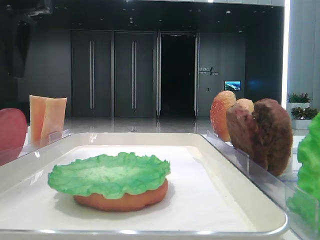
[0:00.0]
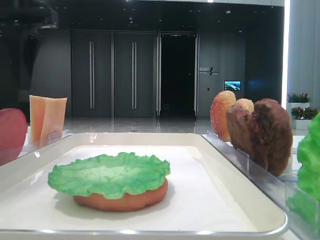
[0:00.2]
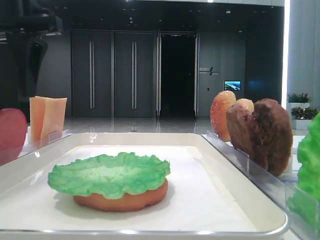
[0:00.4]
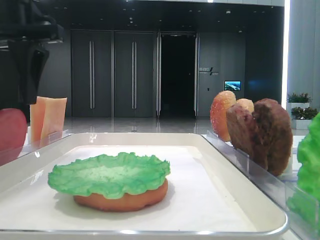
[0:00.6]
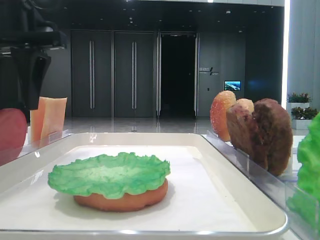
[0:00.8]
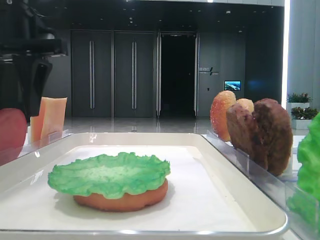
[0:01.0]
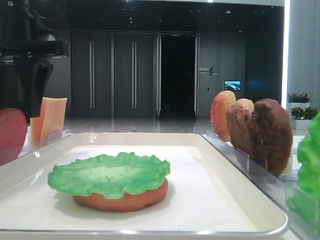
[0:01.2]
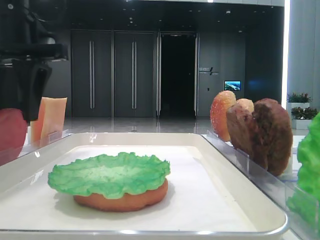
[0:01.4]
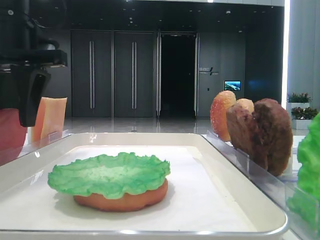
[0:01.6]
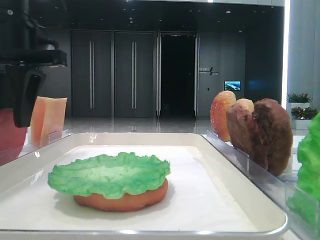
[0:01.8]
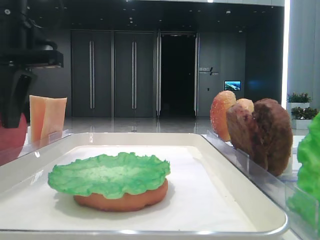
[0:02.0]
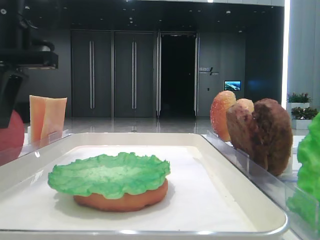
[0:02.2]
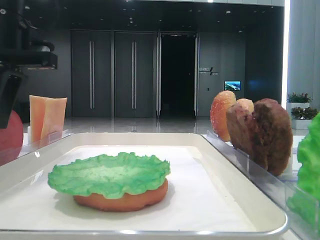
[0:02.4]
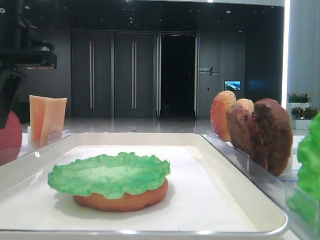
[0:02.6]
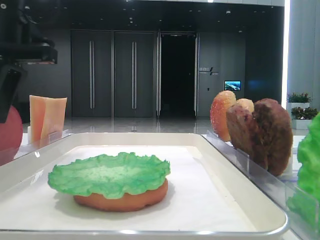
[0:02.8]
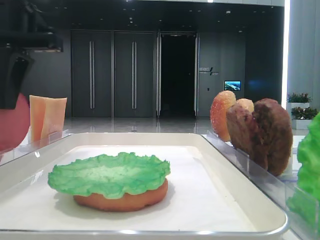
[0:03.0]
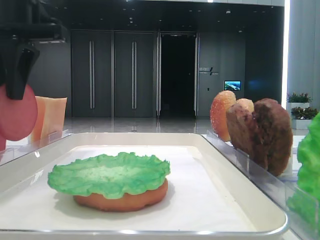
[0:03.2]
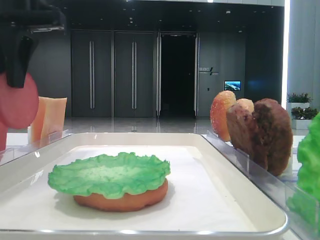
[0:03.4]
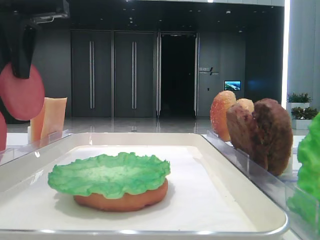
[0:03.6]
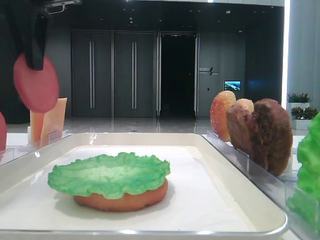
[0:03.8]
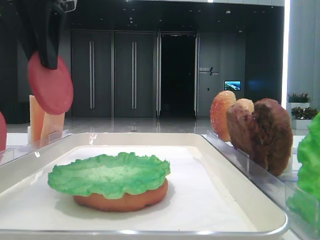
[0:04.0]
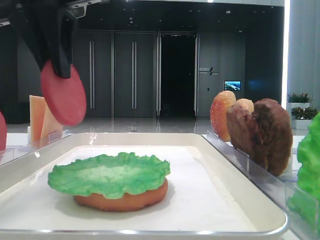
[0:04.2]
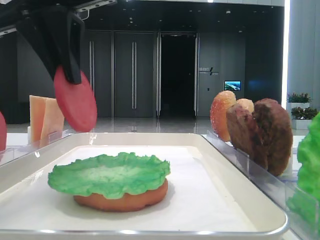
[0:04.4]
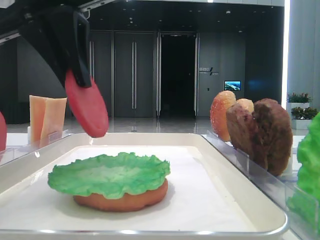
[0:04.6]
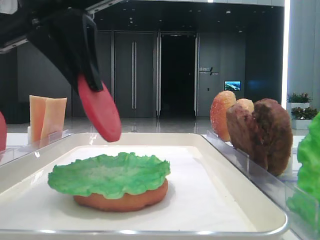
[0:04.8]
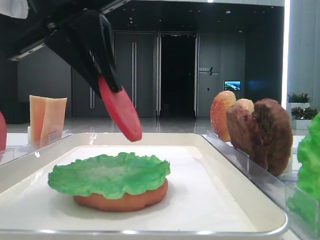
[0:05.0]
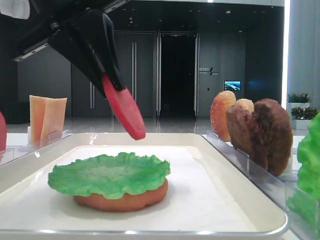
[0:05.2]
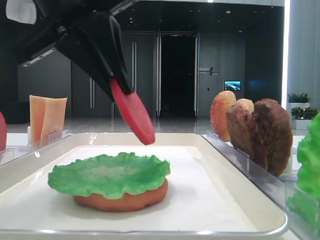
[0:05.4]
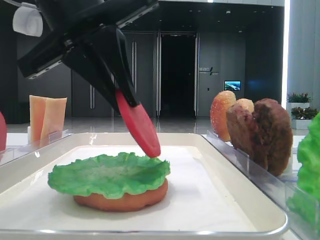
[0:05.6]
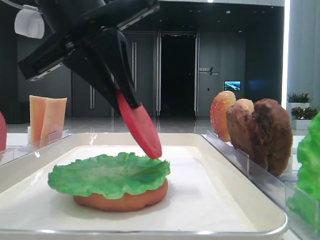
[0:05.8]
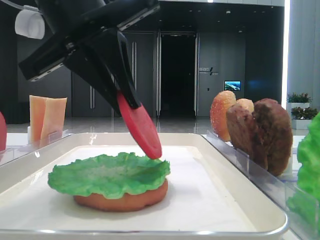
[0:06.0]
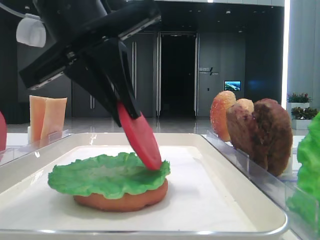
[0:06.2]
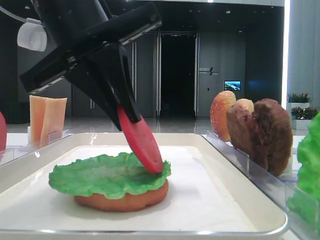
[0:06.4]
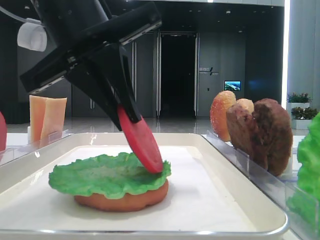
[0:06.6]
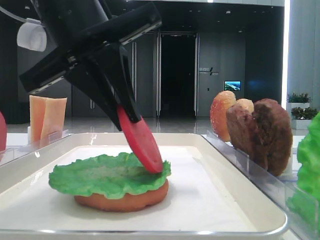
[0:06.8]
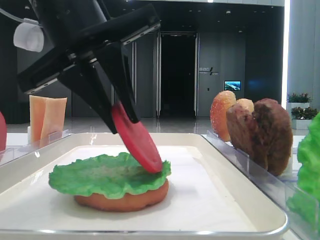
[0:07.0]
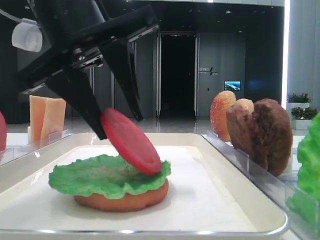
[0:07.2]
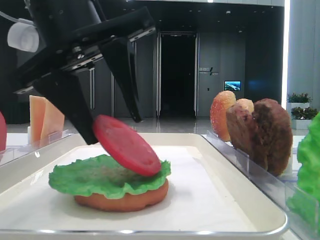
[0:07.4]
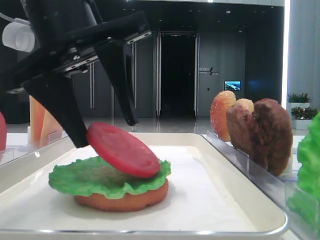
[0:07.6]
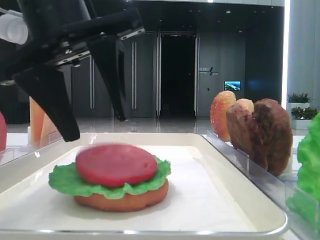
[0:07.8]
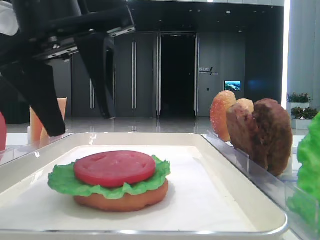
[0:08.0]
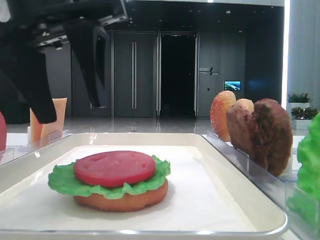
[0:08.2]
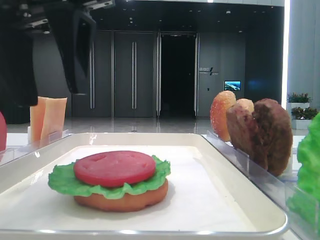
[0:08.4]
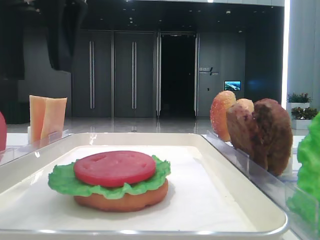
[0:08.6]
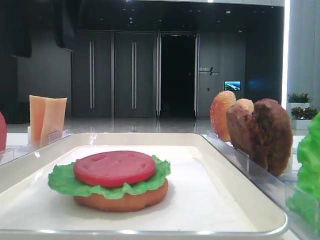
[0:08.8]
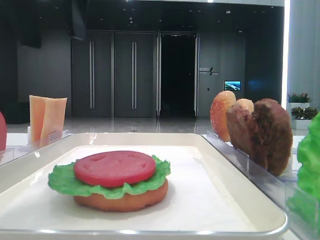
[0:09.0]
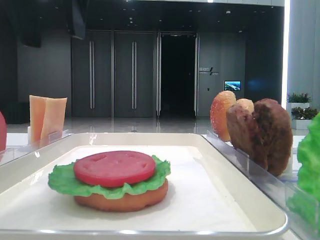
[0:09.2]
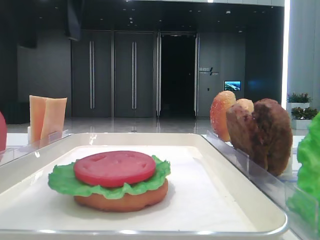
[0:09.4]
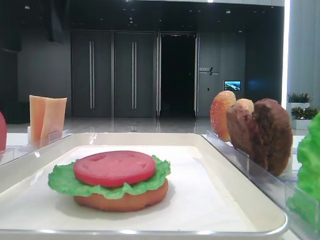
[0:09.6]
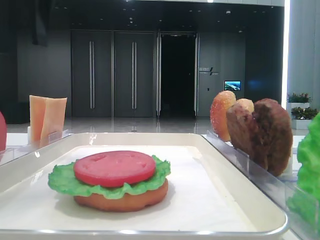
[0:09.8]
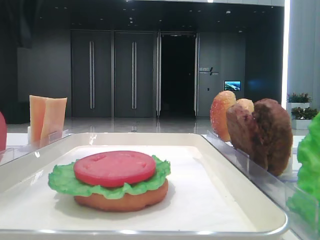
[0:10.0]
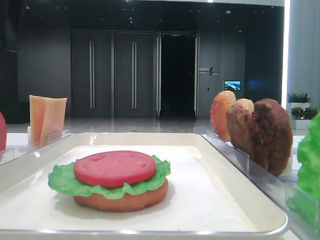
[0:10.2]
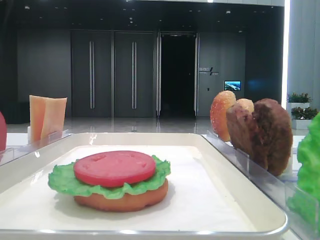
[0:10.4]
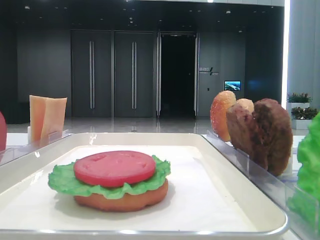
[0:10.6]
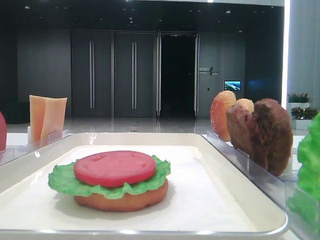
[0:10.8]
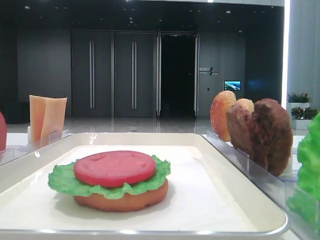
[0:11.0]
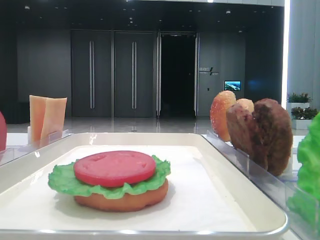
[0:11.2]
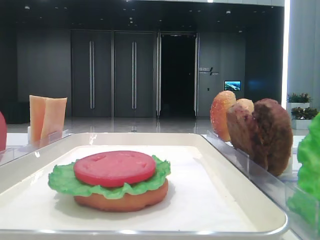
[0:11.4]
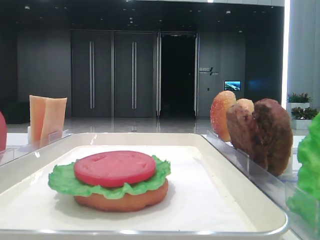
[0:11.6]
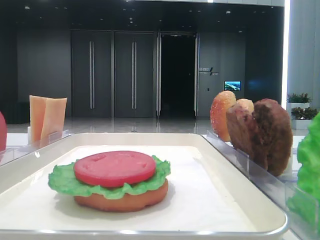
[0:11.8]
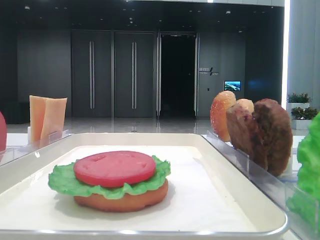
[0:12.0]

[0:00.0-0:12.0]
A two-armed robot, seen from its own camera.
Step, 0:00.0 to 0:02.6: Pick up the tomato slice with the left hand.
Step, 0:02.8 to 0:07.6: Place the tomato slice on the lettuce leaf with the left hand.
0:00.0 to 0:01.6: The left gripper shifts approximately 5 cm downward.
0:01.6 to 0:03.0: The left gripper closes up.
0:03.0 to 0:04.4: The left gripper travels to the right by roughly 5 cm.
0:04.4 to 0:06.0: The left gripper moves approximately 5 cm.
0:06.0 to 0:07.6: The left gripper opens up.
0:07.6 to 0:09.0: The left gripper moves upward, some 10 cm.
0:09.0 to 0:10.4: The left gripper moves to the left and forward, roughly 15 cm.

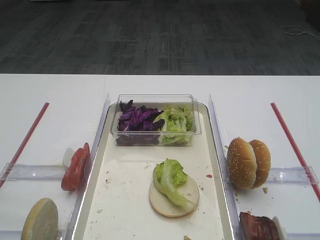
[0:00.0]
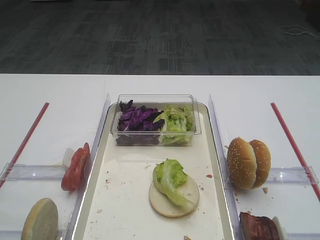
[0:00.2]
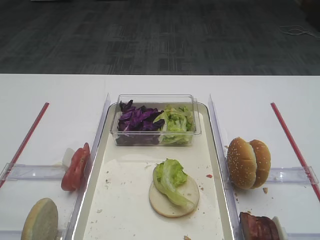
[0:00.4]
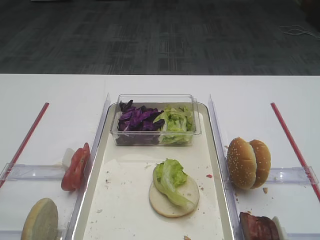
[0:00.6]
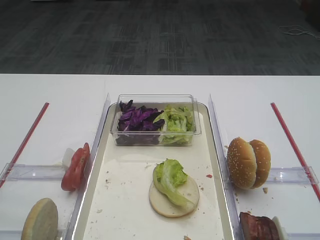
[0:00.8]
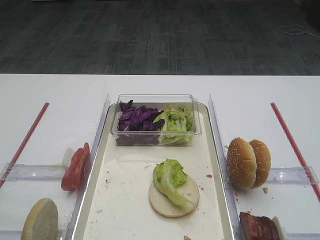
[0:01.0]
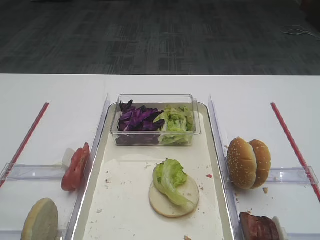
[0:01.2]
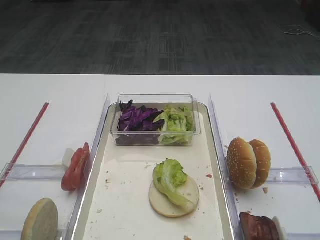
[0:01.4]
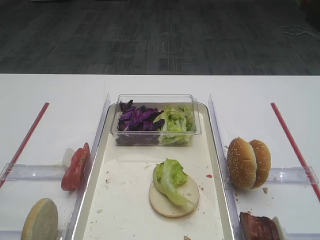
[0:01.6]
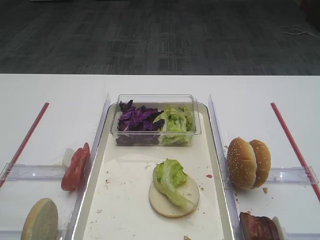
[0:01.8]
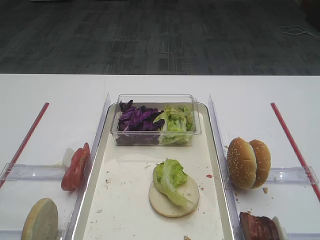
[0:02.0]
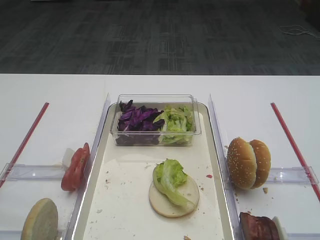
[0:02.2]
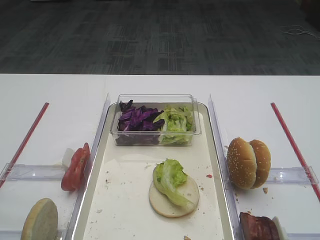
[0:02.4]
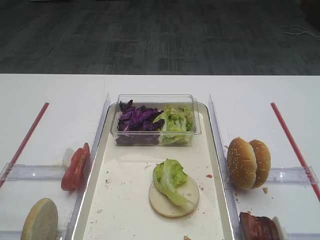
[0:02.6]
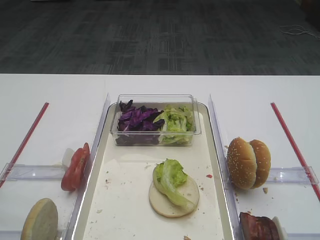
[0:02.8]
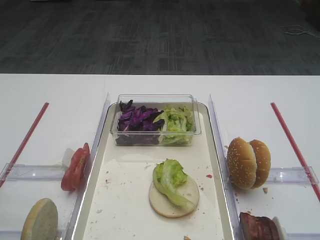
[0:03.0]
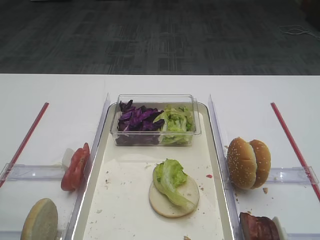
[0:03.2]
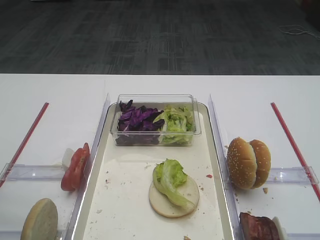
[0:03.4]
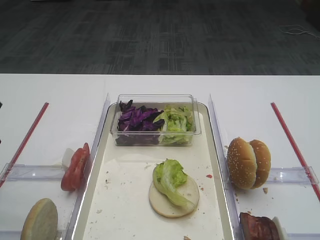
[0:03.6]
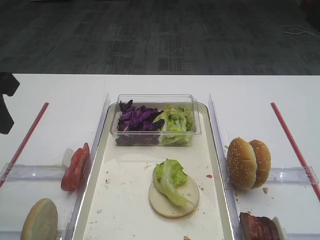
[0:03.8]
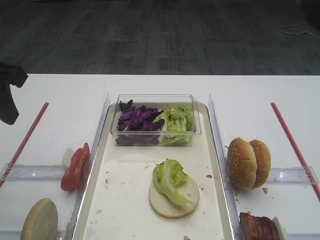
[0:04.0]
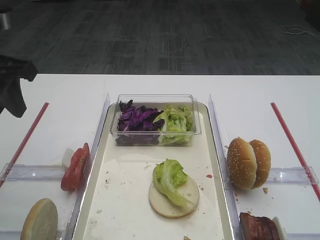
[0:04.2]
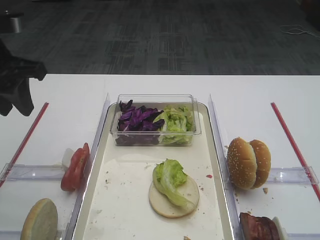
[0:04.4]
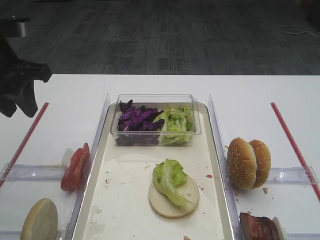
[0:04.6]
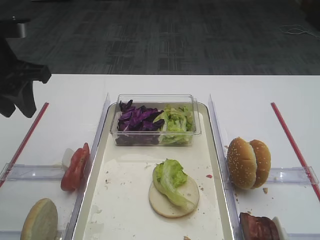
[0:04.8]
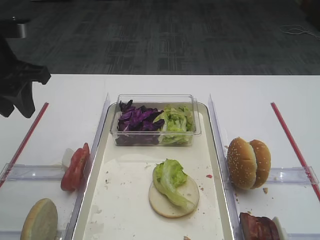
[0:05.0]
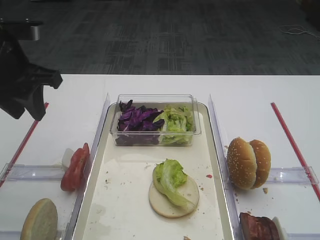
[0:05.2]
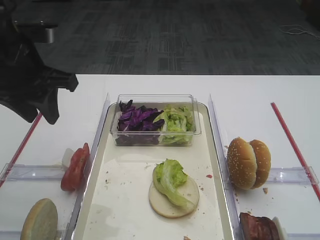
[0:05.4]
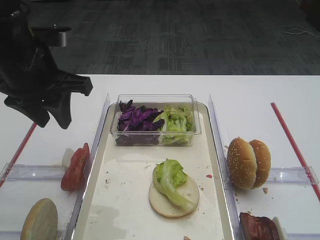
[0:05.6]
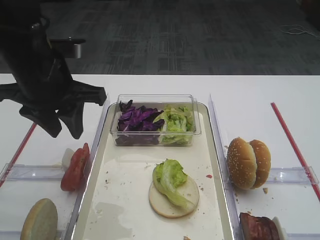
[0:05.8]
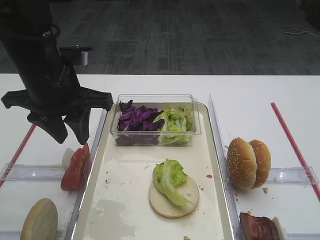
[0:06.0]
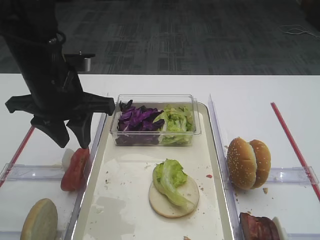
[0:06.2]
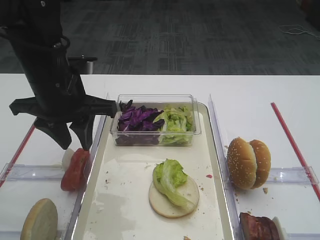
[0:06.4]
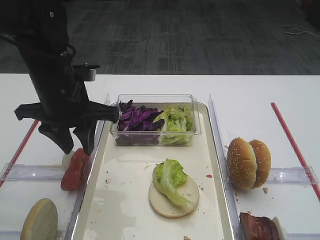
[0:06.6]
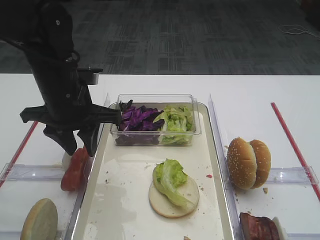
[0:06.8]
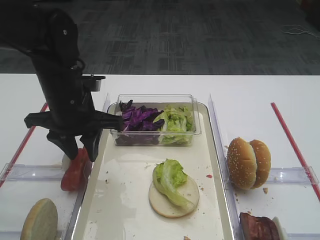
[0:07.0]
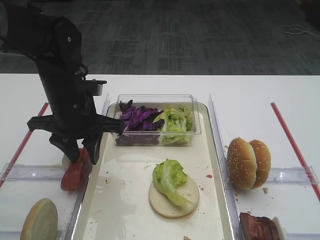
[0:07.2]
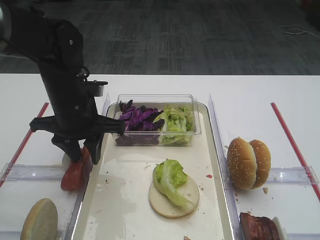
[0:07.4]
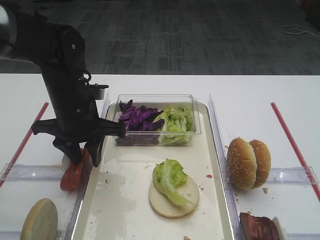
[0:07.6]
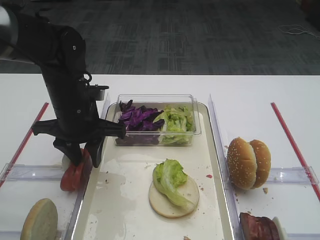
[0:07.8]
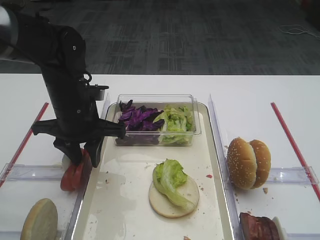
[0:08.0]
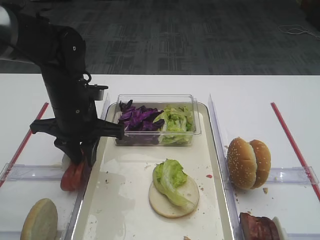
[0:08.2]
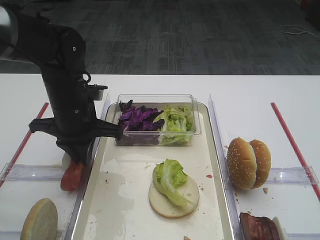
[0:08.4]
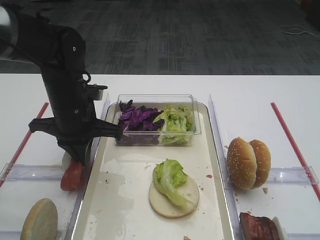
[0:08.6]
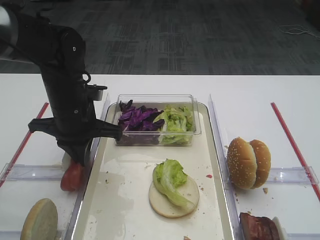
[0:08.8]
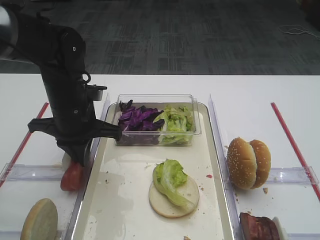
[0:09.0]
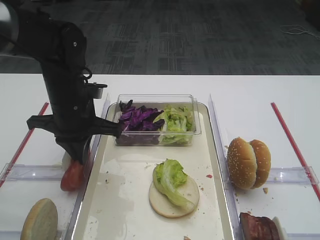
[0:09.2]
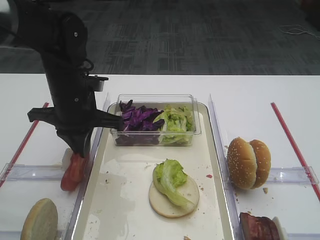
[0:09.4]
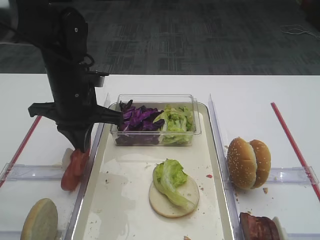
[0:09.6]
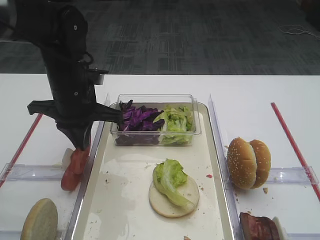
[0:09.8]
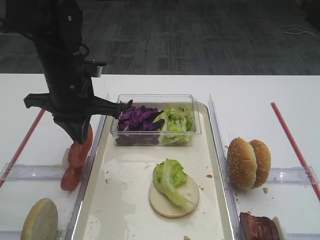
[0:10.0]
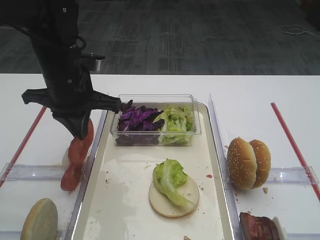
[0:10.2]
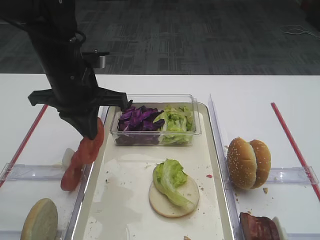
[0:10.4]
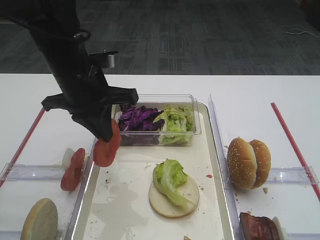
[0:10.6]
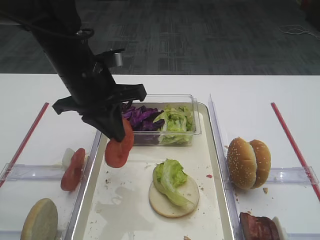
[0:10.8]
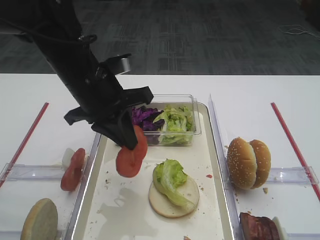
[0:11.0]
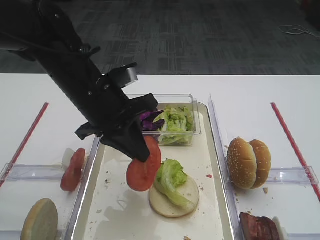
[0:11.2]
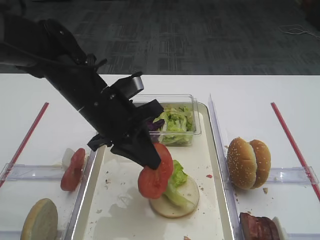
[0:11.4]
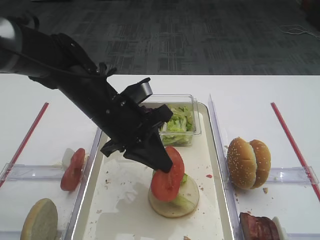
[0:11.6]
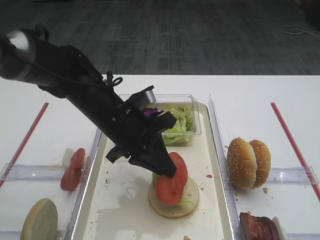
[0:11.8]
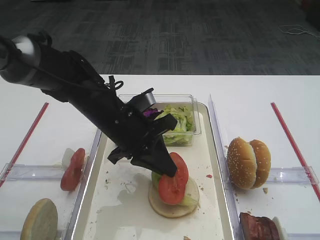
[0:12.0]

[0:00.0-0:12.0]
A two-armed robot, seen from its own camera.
Step, 0:00.0 to 0:09.6: Pick up the tomato slice with the left gripper.
0:03.0 to 0:04.4: The left gripper goes roughly 20 cm forward.
0:04.4 to 0:06.0: The left gripper moves to the right, about 10 cm.
0:06.0 to 0:07.6: The left gripper shifts roughly 10 cm downward.
0:07.6 to 0:09.0: The left gripper closes up.
0:09.0 to 0:10.4: The left gripper travels upward by some 5 cm.
0:10.4 to 0:12.0: The left gripper travels downward and to the right by approximately 10 cm.
